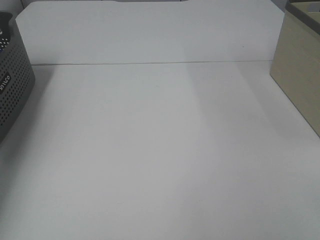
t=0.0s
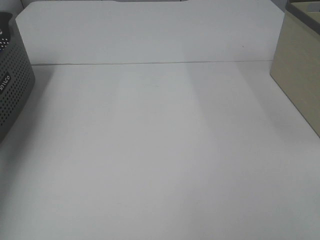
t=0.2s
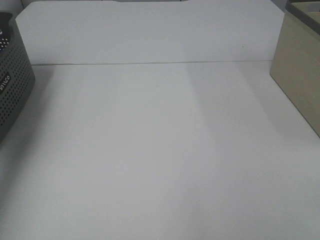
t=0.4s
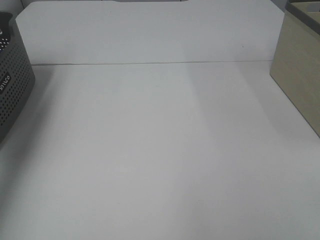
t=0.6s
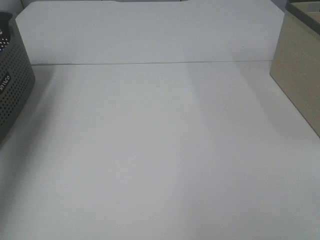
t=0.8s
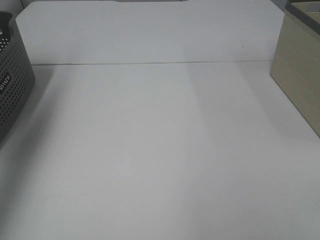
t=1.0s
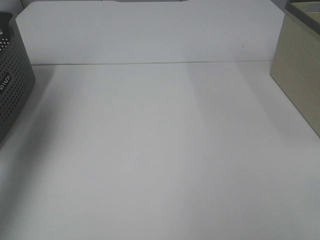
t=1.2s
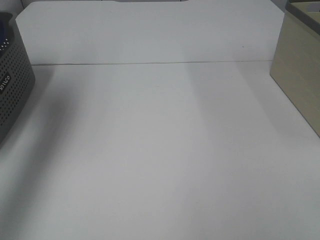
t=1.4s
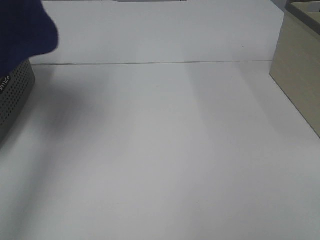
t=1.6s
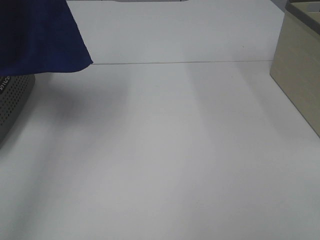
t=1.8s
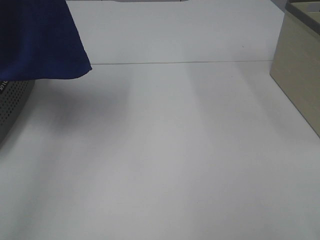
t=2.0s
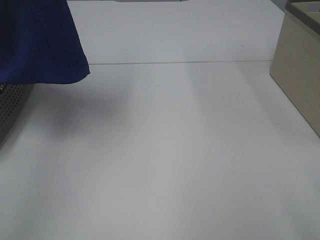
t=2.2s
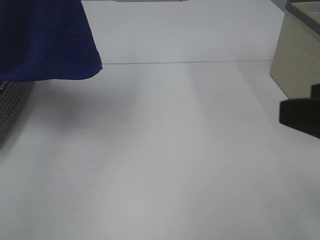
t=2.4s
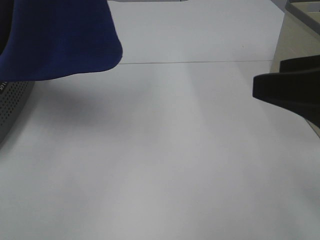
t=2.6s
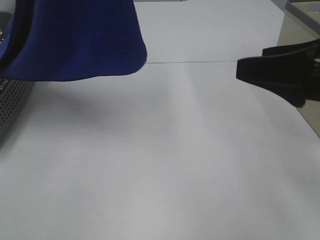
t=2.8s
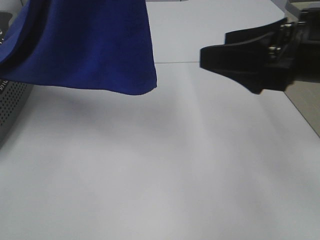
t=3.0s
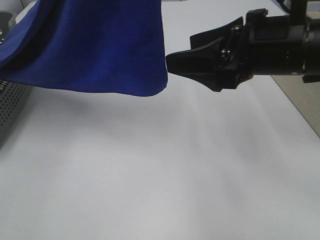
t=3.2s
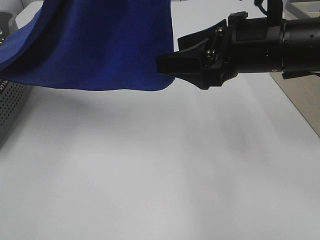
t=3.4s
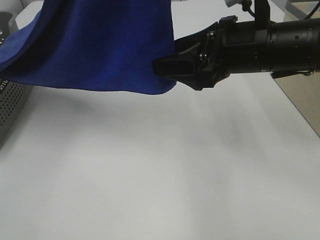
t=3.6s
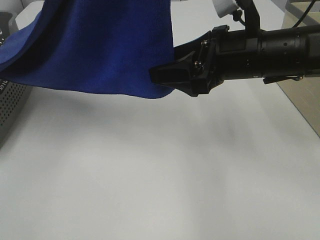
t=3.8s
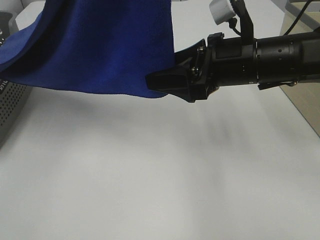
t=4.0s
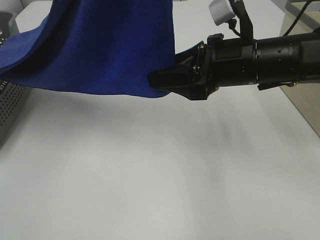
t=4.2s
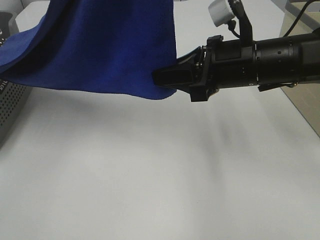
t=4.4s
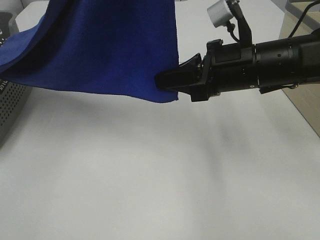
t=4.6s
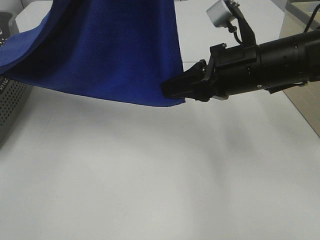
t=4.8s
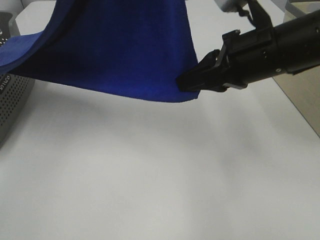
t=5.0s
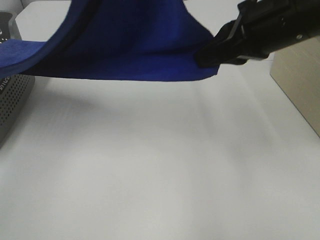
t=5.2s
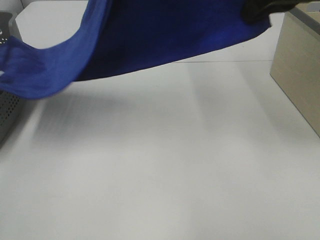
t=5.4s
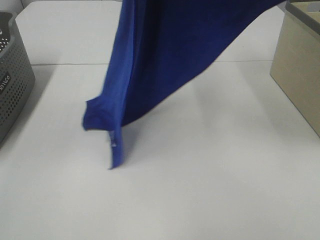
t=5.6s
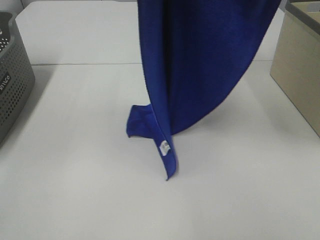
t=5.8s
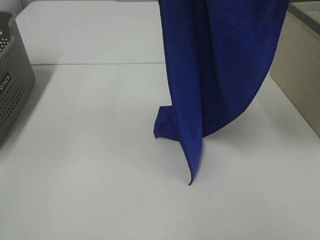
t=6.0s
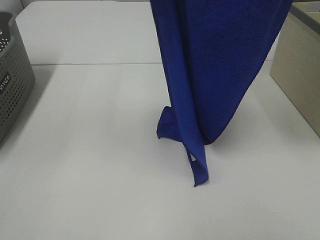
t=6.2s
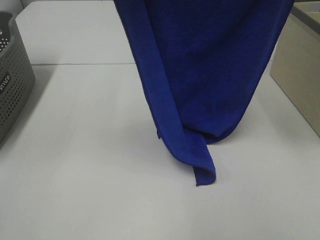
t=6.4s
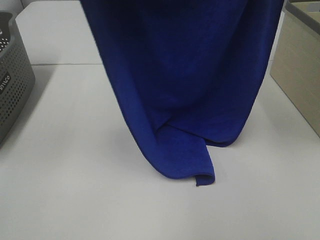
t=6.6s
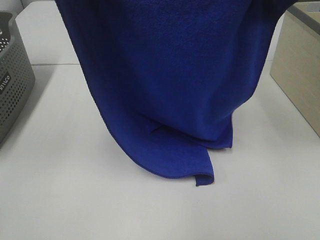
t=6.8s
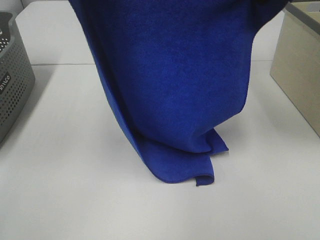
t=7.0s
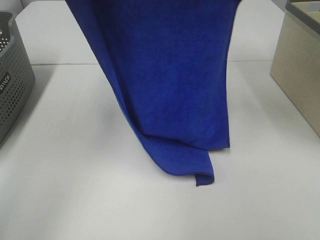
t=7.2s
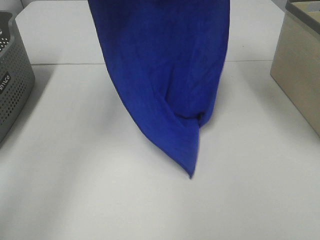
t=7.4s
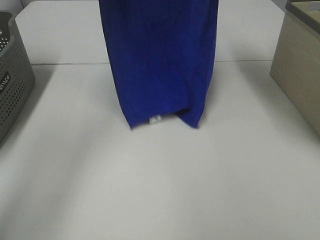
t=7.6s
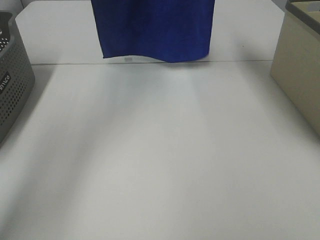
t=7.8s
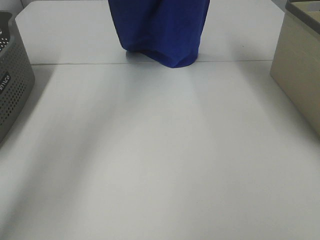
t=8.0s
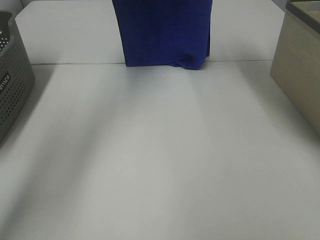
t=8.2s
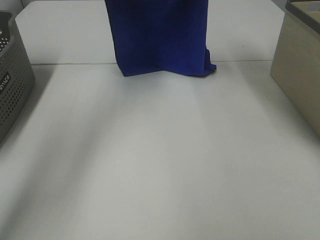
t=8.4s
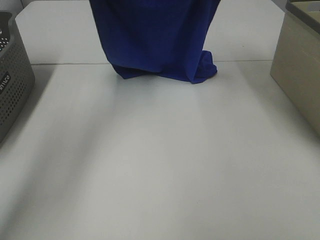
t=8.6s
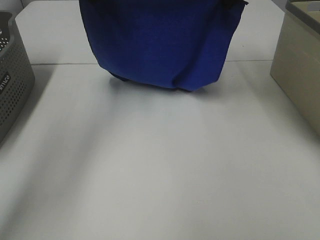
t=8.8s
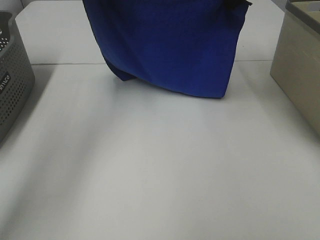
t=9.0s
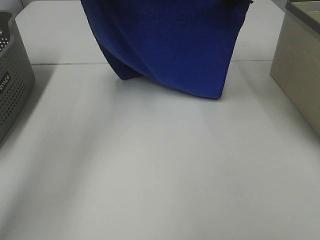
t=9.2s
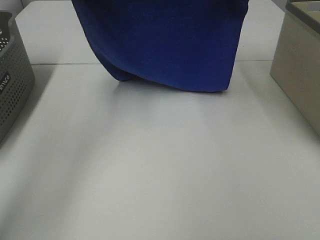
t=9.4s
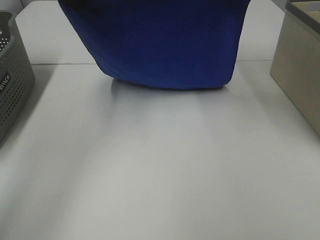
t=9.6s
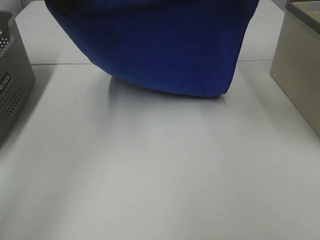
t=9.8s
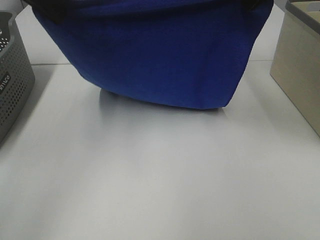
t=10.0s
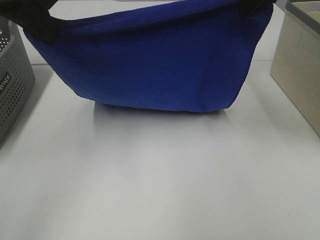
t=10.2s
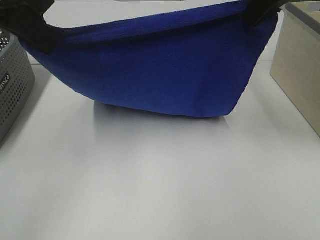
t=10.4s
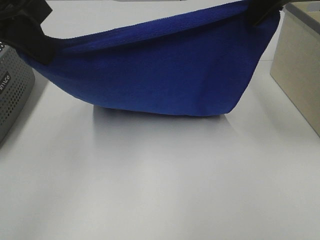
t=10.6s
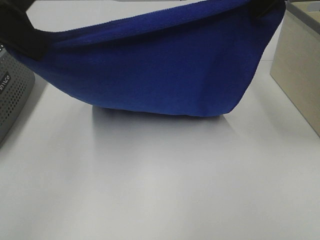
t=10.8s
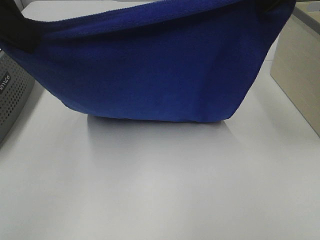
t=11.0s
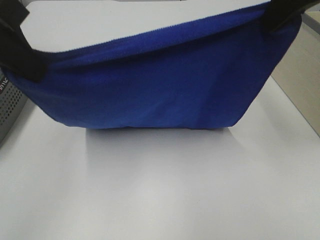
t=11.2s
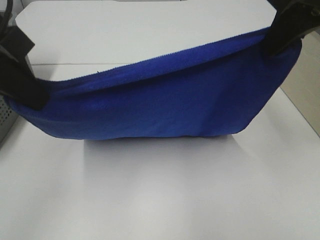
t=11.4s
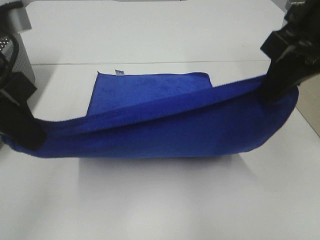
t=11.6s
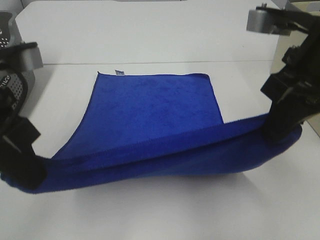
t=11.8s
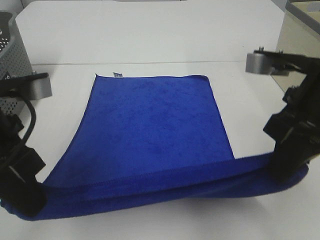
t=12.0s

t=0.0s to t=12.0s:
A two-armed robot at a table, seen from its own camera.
Task of the whole recording: Remove the towel and place it.
Step, t=1.4s to t=5.0s: Right hand: grab a corner of the blue towel and straighten it.
Step, t=5.2s to t=11.8s: Left hand: spread the blue towel flat on the table.
Step, t=5.2s to t=11.8s: Right hand: spread the blue towel flat on the table.
t=0.0s to t=1.6s: The left gripper is displaced upward, to the right and backward by approximately 35 cm.
t=1.6s to t=3.0s: The left gripper moves to the right, about 15 cm. The right gripper shifts roughly 25 cm forward and to the left.
t=3.0s to t=4.4s: The right gripper heads forward, downward and to the left, covering about 10 cm, and closes its fingers.
t=4.4s to t=6.0s: The right gripper heads upward, covering some 25 cm.
t=6.0s to t=7.6s: The right gripper is displaced forward by some 15 cm, while the left gripper is displaced forward and downward by about 20 cm.
t=7.6s to t=9.0s: Both grippers travel together downward, roughly 10 cm.
t=9.0s to t=10.4s: Both grippers move backward, about 15 cm.
t=10.4s to t=12.0s: Both grippers move downward and backward, about 15 cm.

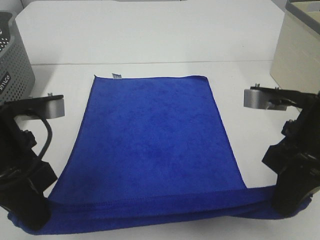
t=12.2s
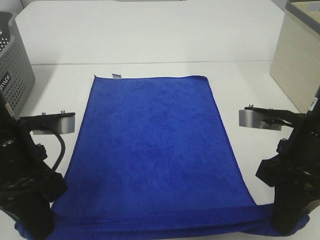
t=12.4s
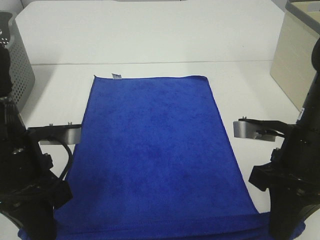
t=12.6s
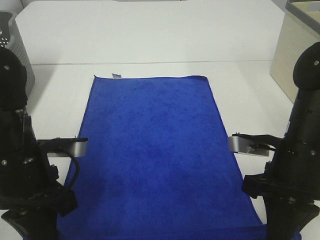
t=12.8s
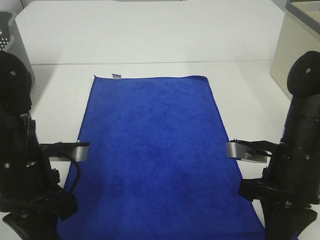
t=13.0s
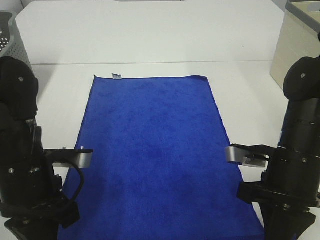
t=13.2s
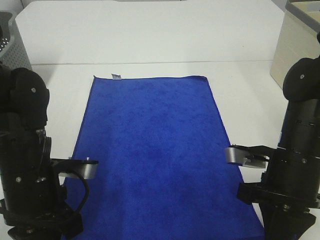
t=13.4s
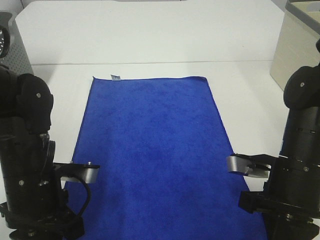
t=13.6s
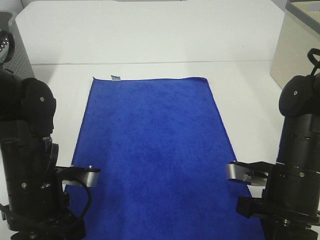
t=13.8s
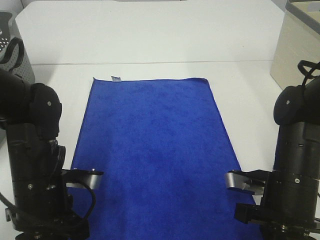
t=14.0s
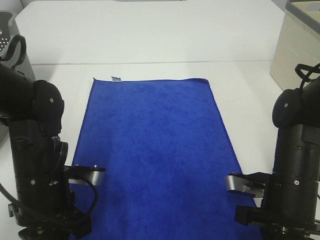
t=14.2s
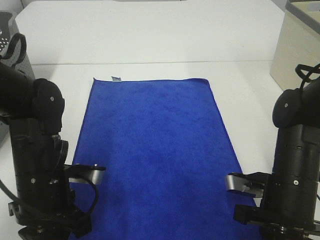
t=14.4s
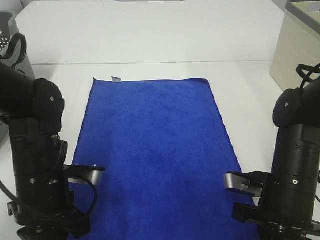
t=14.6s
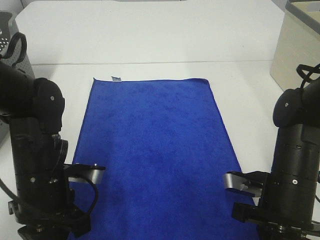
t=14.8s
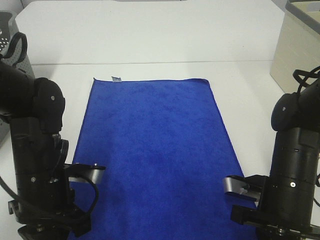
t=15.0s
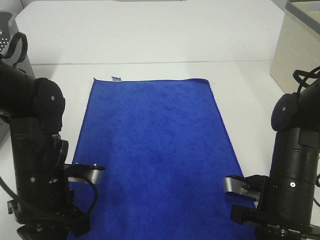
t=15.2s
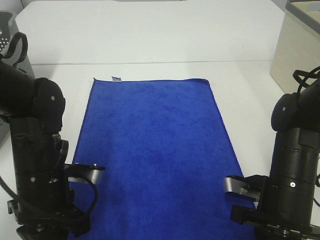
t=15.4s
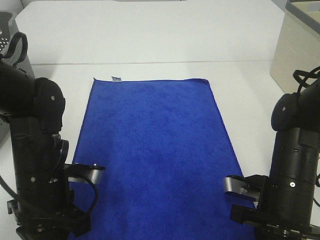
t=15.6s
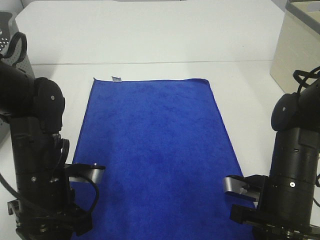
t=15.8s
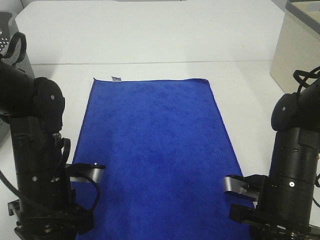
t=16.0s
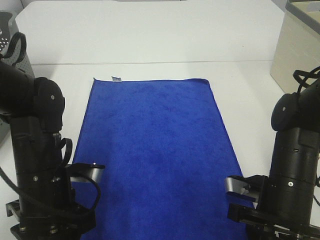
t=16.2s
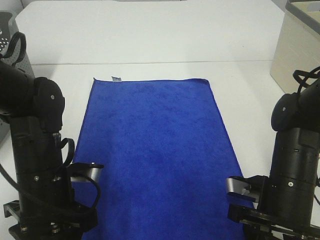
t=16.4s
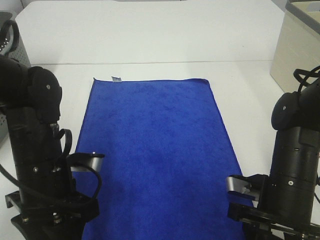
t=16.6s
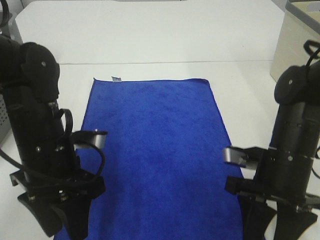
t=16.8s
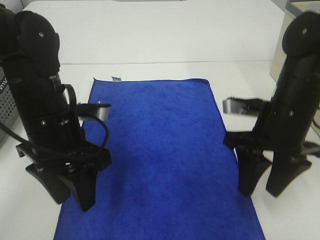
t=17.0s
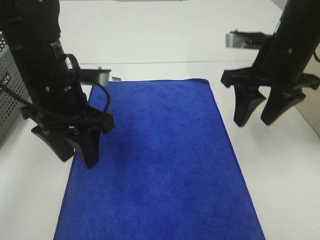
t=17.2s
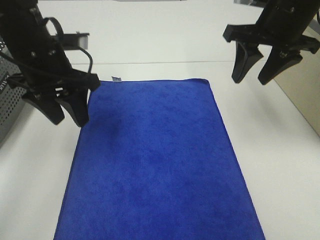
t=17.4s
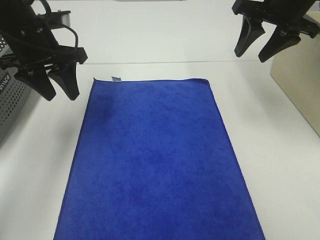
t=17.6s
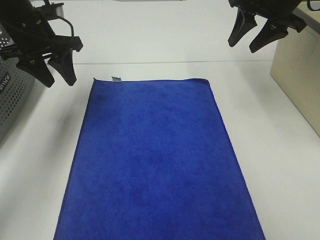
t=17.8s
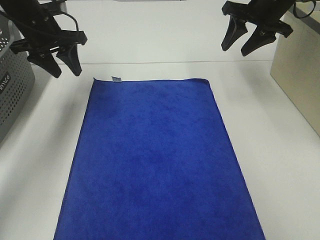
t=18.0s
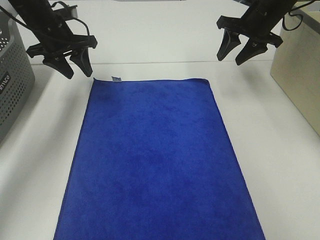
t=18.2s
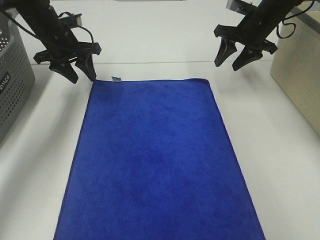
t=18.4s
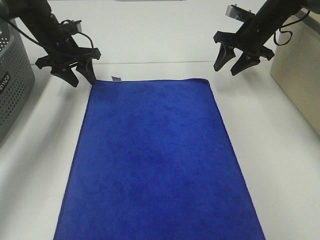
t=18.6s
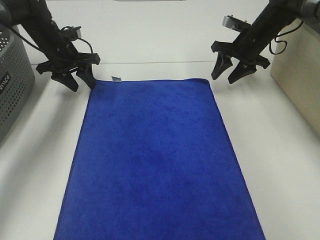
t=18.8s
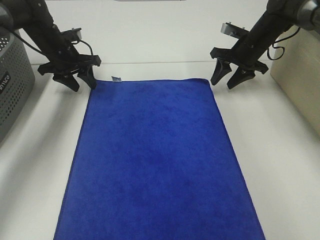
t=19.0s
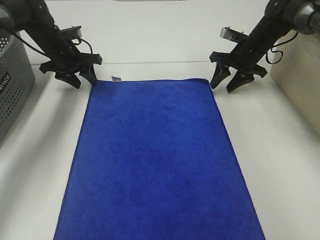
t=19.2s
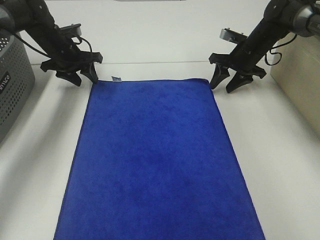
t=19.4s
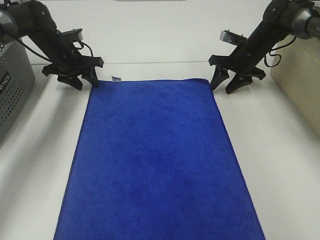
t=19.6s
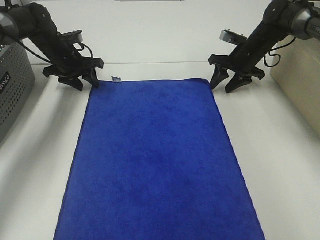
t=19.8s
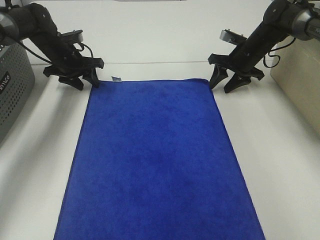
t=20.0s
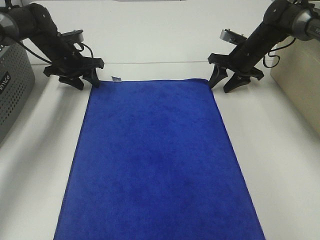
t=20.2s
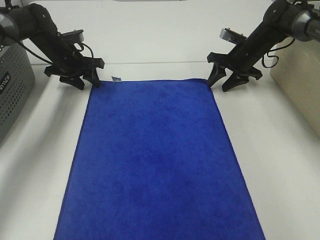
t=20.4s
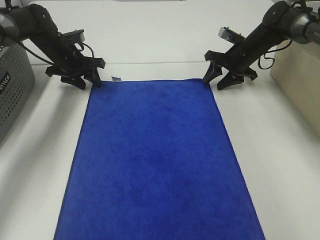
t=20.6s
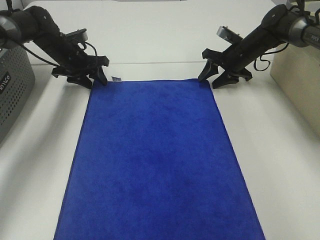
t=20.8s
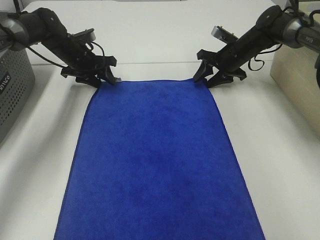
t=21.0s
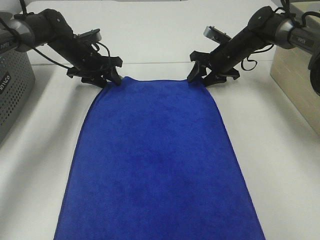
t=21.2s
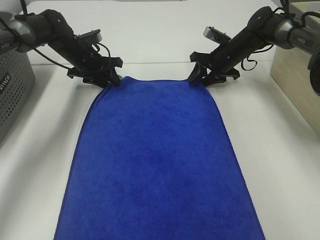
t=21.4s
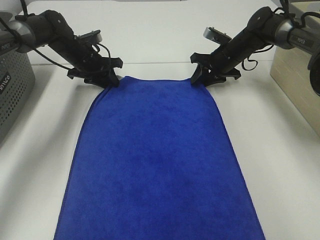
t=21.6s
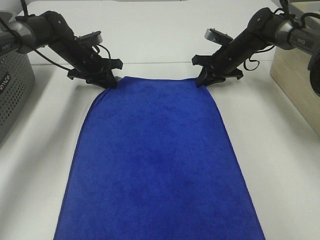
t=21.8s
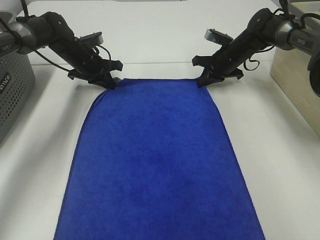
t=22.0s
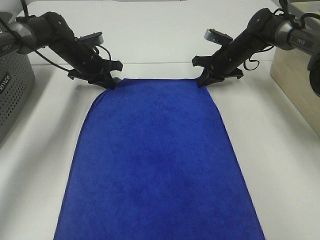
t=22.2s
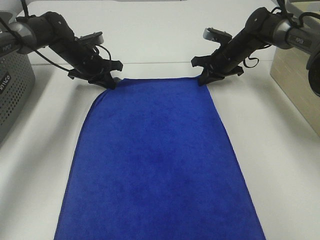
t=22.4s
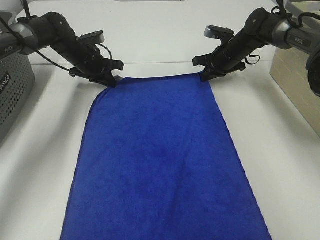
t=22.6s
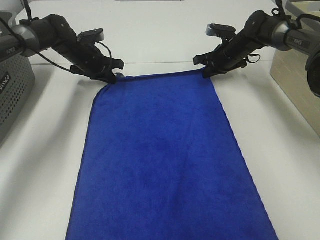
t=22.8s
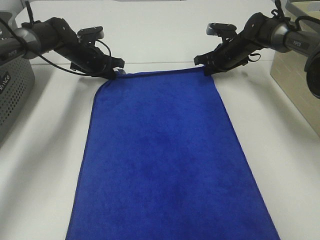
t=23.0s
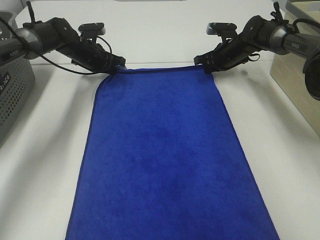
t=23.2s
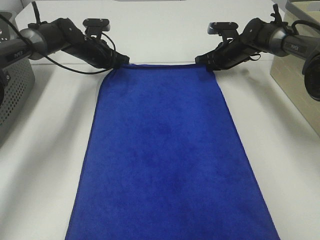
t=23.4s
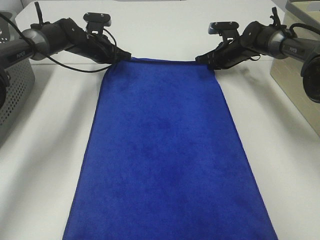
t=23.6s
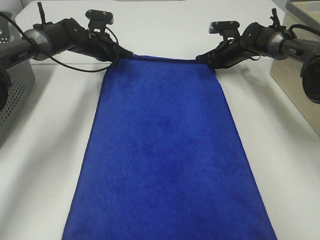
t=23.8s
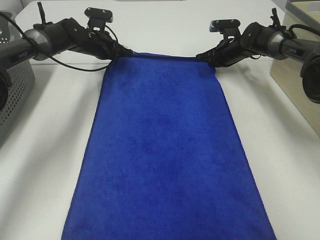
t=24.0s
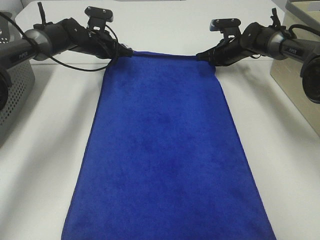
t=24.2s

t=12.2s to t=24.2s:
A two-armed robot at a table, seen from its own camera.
Task of the whole recording: Remove the towel and place it.
Step, t=12.2s to t=19.4s: Left hand:adjust the blue towel.
Step, t=12.2s to t=19.4s: Right hand:adjust the blue towel.
t=12.2s to t=13.8s: The two grippers go roughly 10 cm downward.
t=13.8s to t=15.2s: There are only small adjustments of the grippers.
t=15.2s to t=16.6s: The left gripper opens up. The right gripper opens up.
t=16.6s to t=18.2s: The right gripper is displaced forward and upward by about 35 cm; the left gripper heads forward, covering approximately 30 cm.
t=18.2s to t=19.8s: The two grippers go about 10 cm downward.
t=19.8s to t=21.2s: The grippers make only small movements.
t=21.2s to t=22.6s: The left gripper closes its fingers, while the right gripper closes its fingers.
